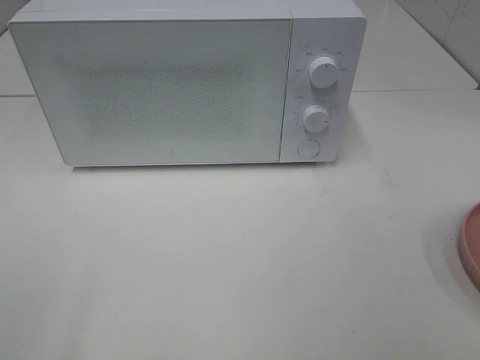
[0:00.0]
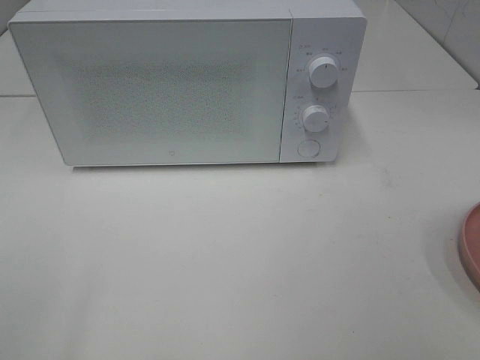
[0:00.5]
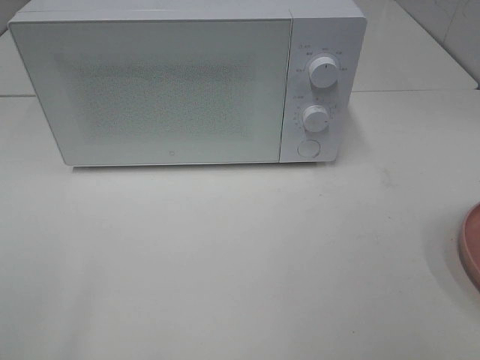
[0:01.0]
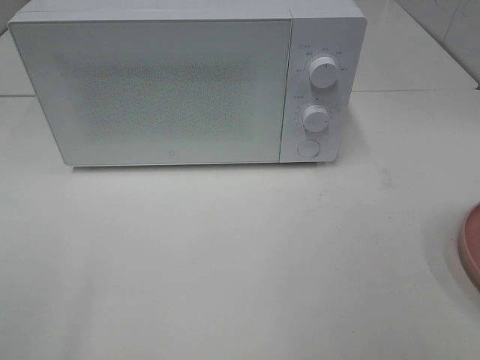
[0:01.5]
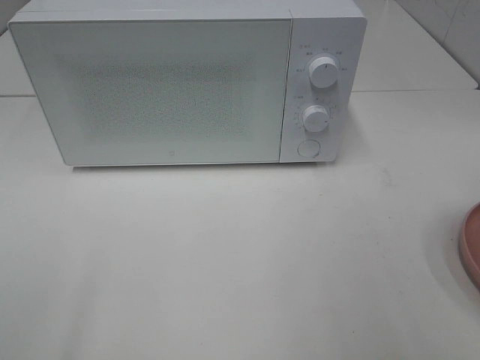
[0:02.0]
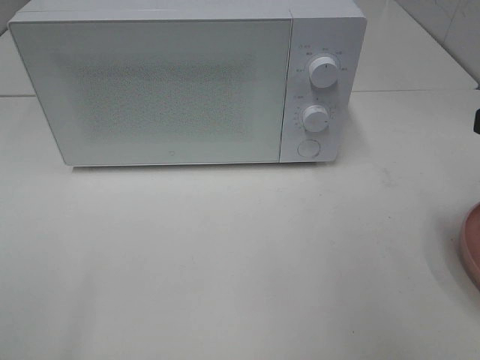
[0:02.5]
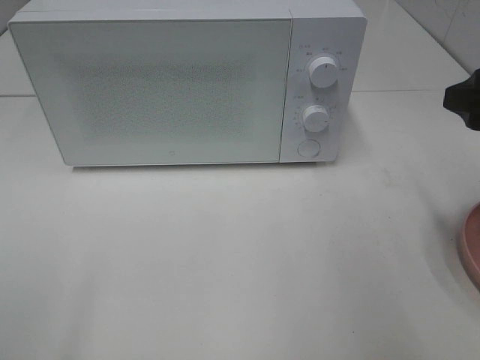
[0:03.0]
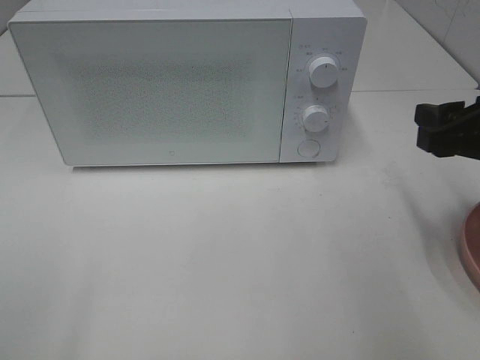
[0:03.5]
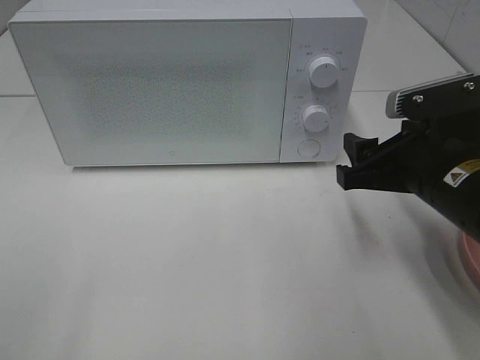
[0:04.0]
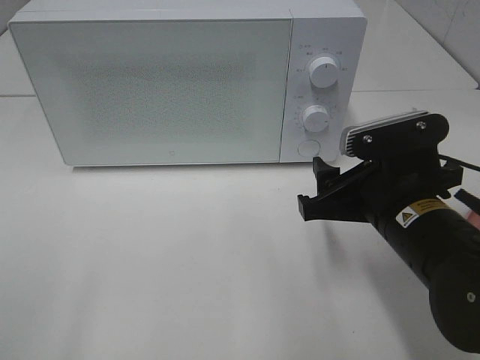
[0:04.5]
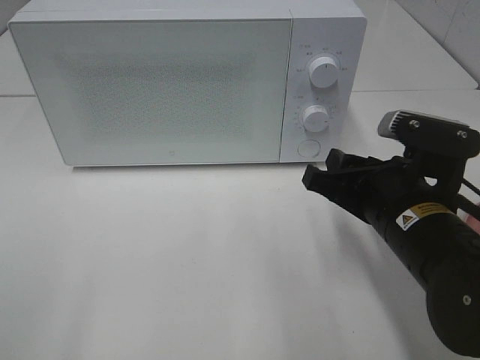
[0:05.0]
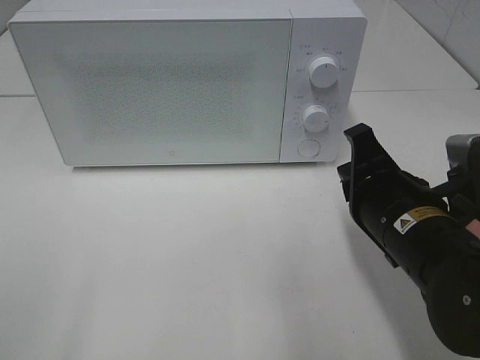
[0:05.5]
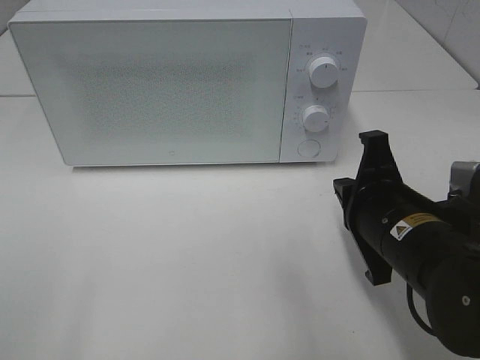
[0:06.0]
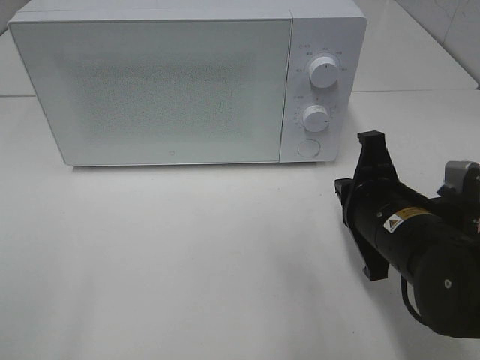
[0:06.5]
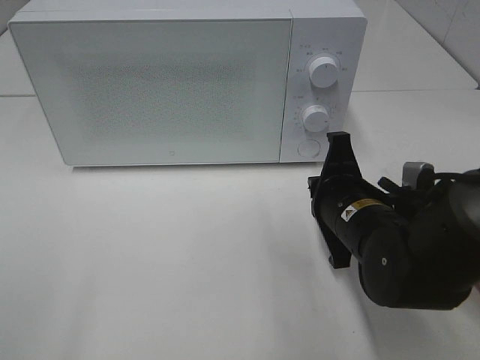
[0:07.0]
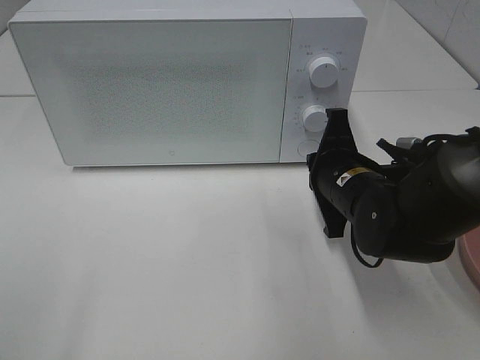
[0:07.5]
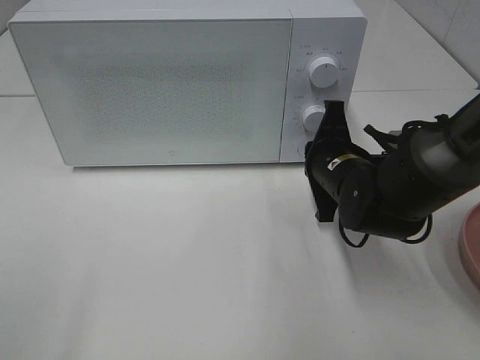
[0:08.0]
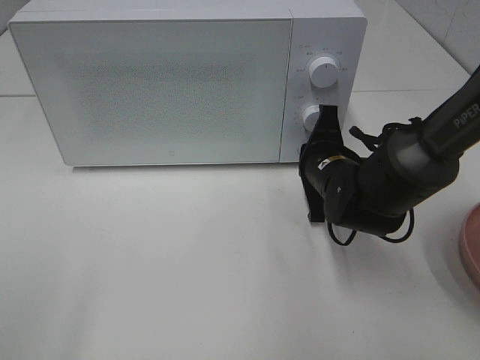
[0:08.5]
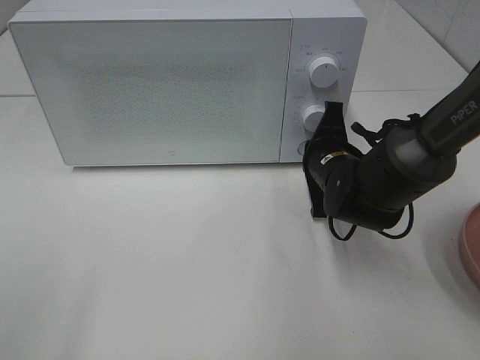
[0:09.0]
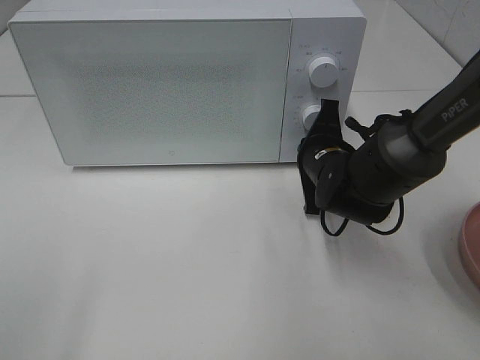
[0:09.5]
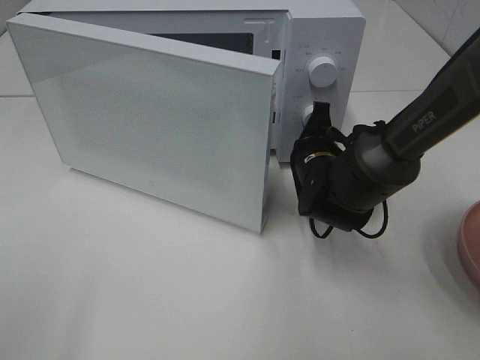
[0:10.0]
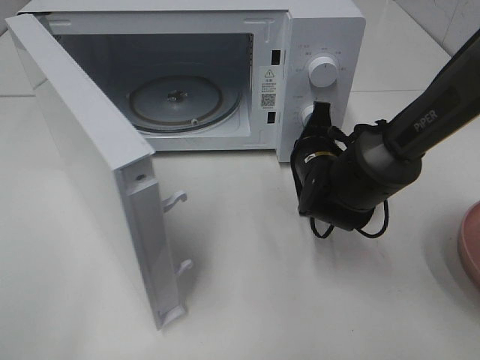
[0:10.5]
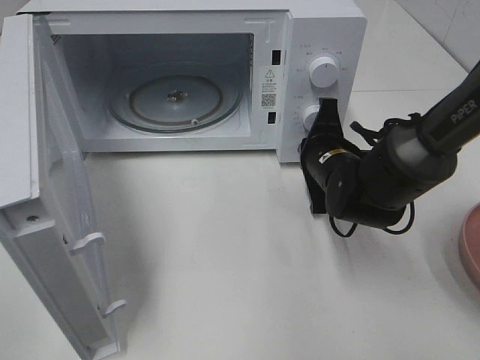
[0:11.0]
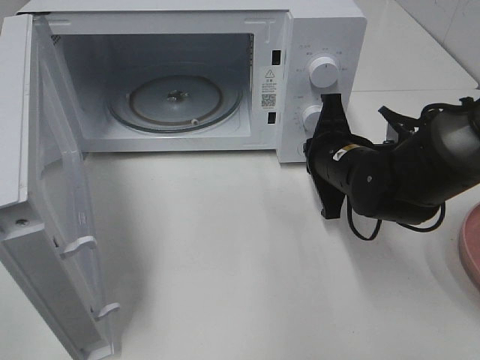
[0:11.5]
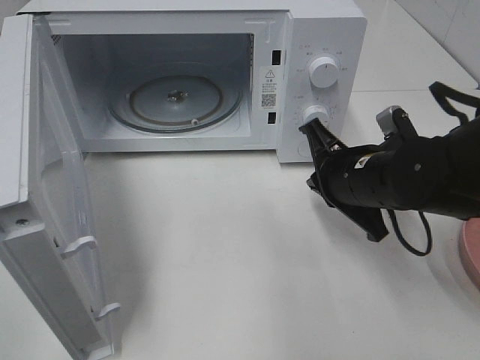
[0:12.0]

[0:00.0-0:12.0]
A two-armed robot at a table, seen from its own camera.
Task of the whole recording: Heat the burger.
Step, 0:00.0 to 0:11.0: Right hand: press the switch.
0:02.0 to 0:04.0: The right gripper goes some 20 cm downward, forward and to the left.
0:04.0 to 0:06.0: The right gripper moves some 5 cm, and closes.
0:06.0 to 0:08.0: The right gripper travels forward by roughly 10 cm.
0:10.0 to 0:12.0: The right gripper travels backward and upward by some 10 cm.

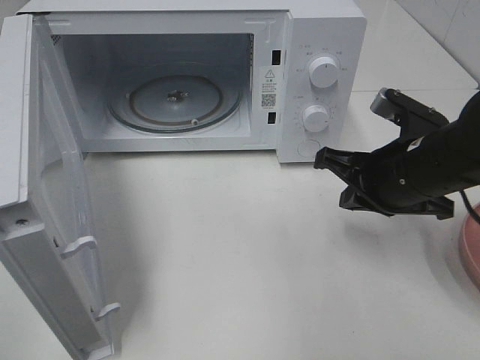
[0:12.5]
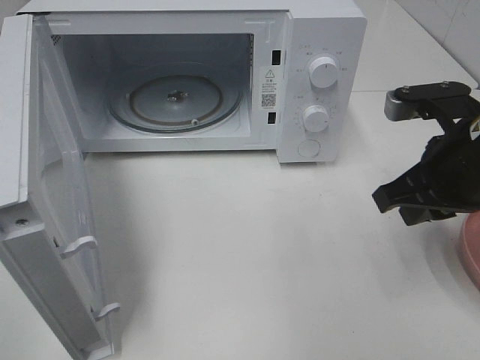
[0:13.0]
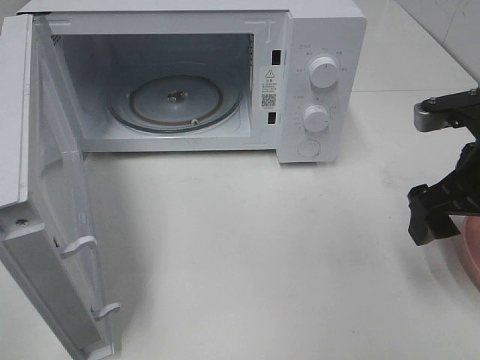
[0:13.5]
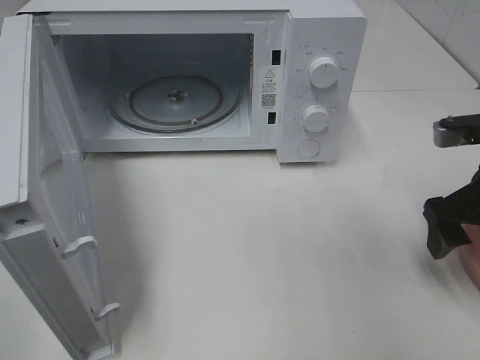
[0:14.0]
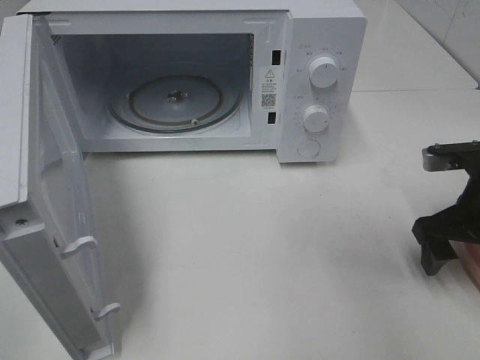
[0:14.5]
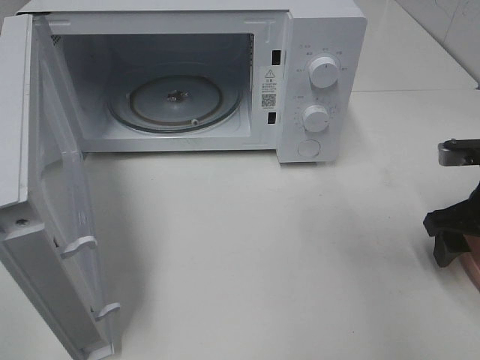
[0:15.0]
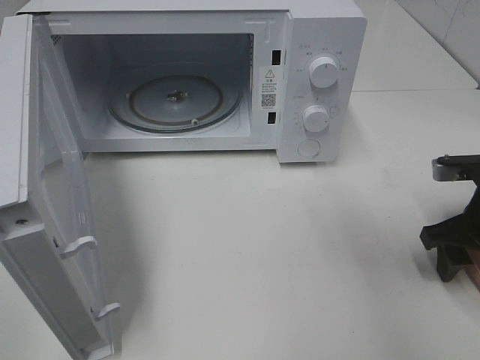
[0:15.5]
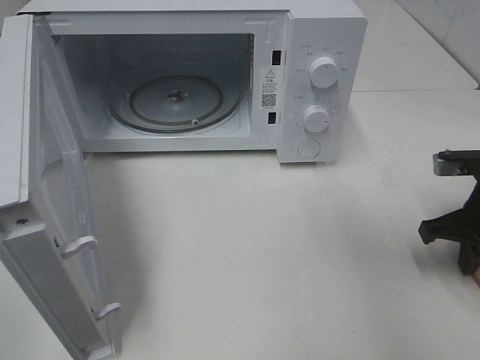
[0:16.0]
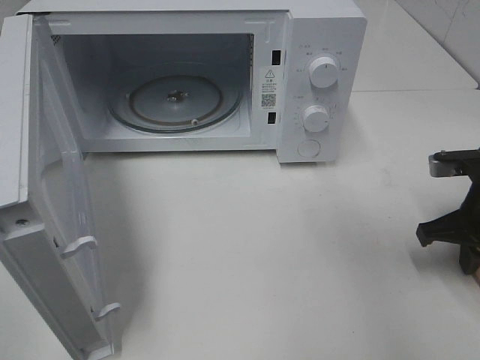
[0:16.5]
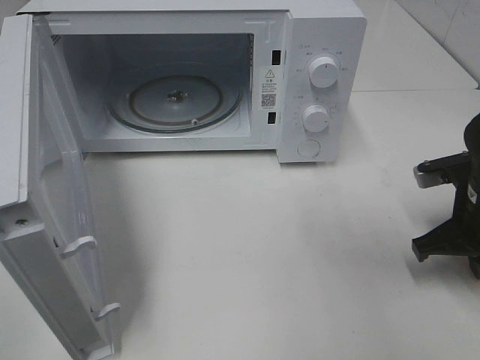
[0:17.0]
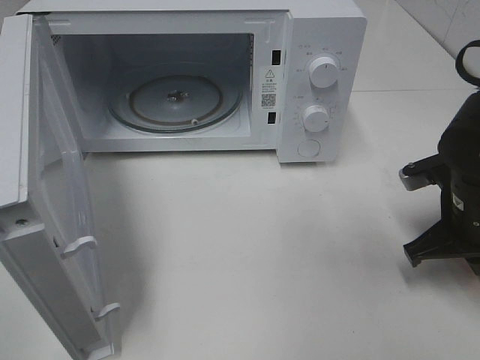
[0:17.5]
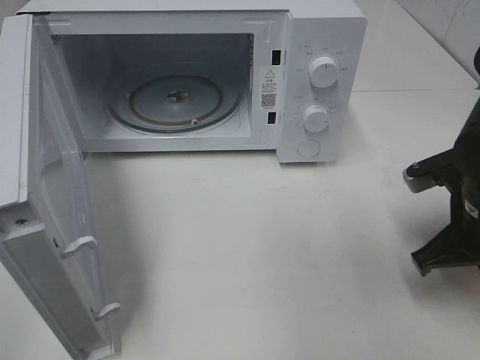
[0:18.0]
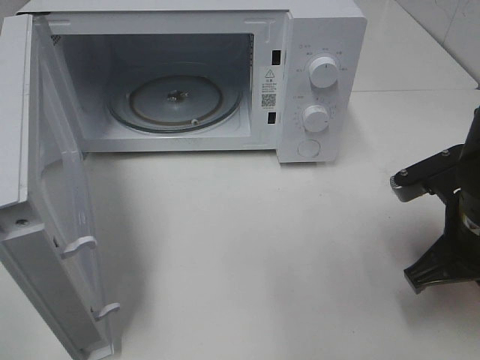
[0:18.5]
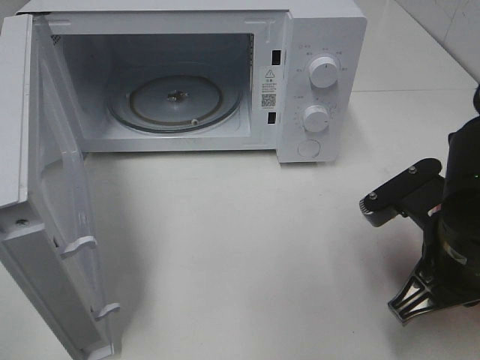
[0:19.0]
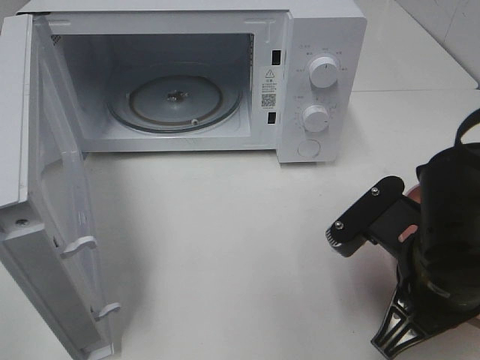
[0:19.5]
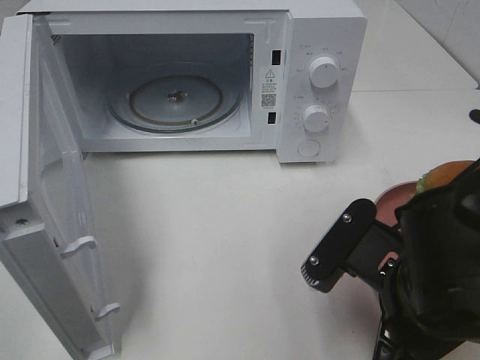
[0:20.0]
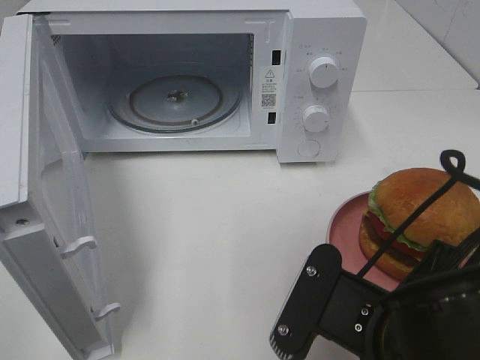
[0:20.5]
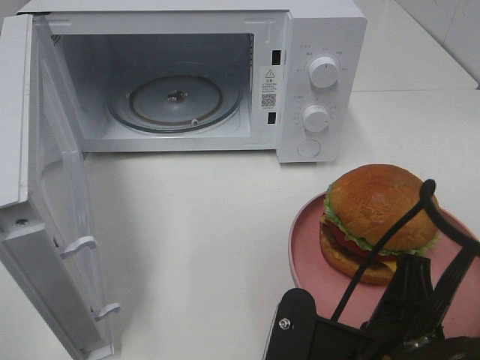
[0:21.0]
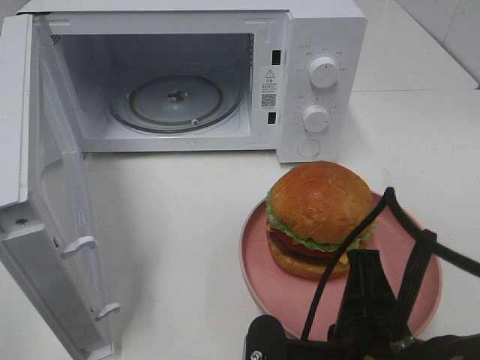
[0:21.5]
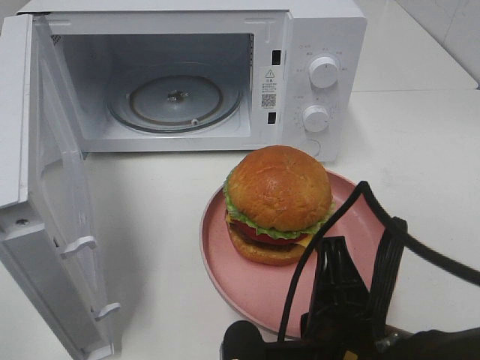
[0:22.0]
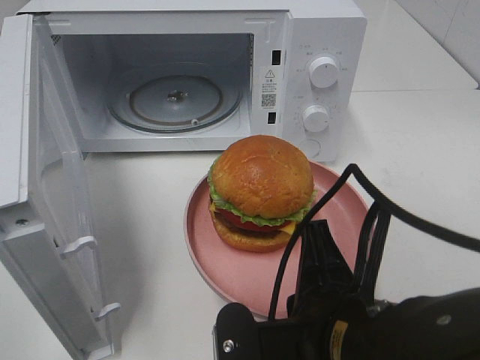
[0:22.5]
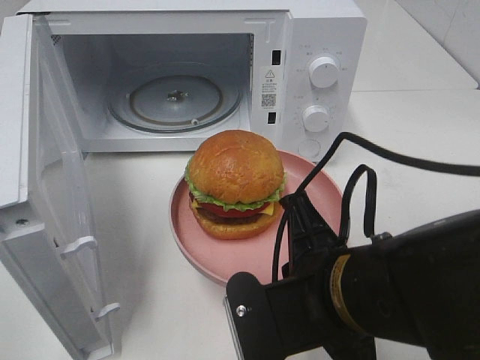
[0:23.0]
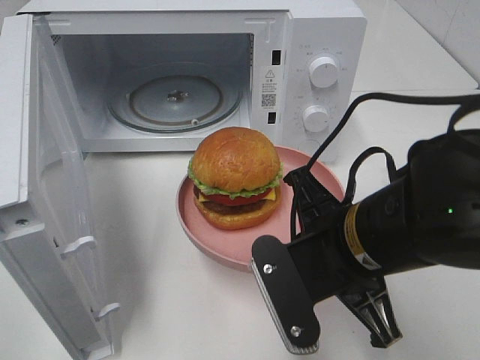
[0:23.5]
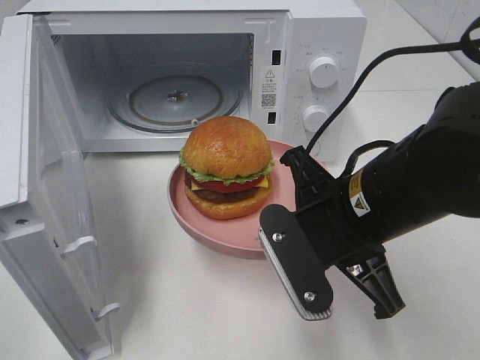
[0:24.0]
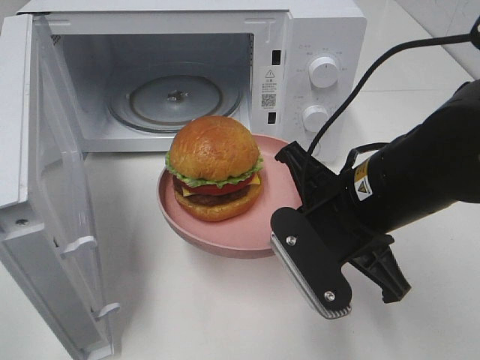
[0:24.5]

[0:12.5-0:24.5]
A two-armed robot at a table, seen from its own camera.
Task of the whole recording: Heat the burger.
Step, 0:12.5 to 0:16.0: Right hand: grab the plate with the hamburger.
0:12.5 to 0:14.5: The right gripper travels to the right by some 10 cm, and opens.
0:14.5 to 0:16.5: The right gripper closes up.
0:16.5 to 0:18.5: The right gripper is displaced to the left and backward by some 10 cm.
0:18.5 to 0:20.5: The right gripper travels backward and to the left by about 15 cm.
0:22.5 to 0:24.5: The right gripper goes about 10 cm forward.

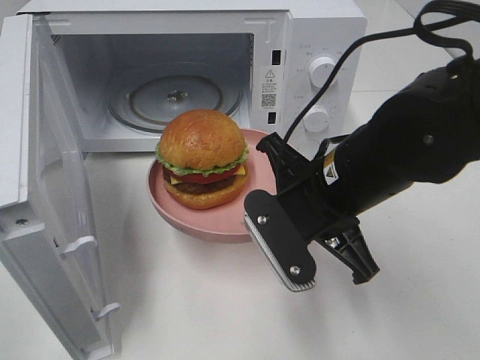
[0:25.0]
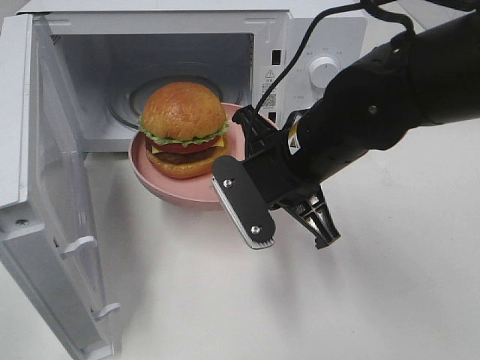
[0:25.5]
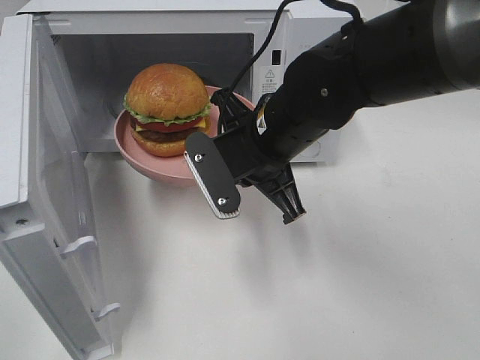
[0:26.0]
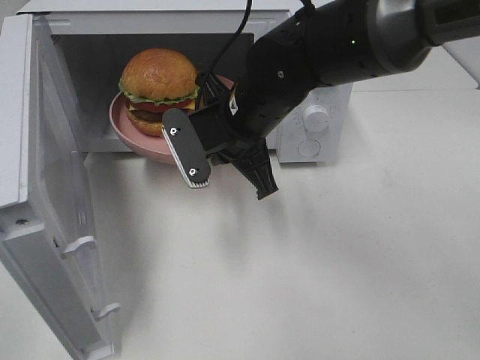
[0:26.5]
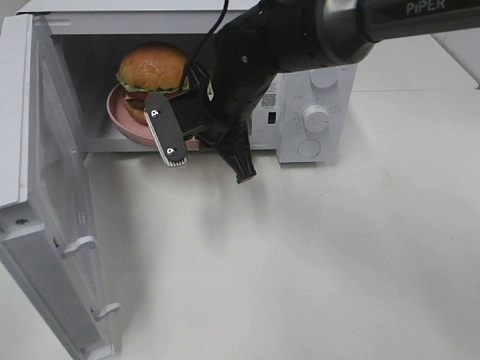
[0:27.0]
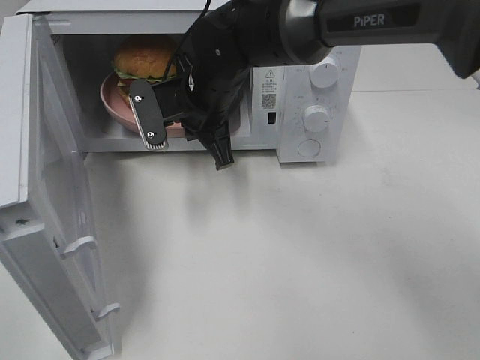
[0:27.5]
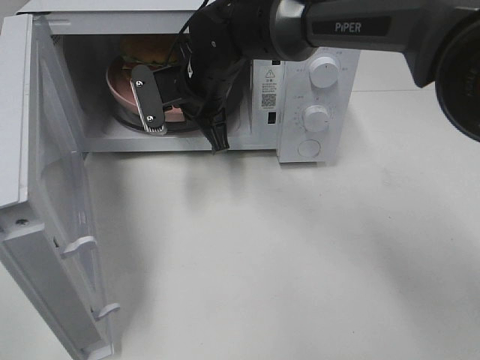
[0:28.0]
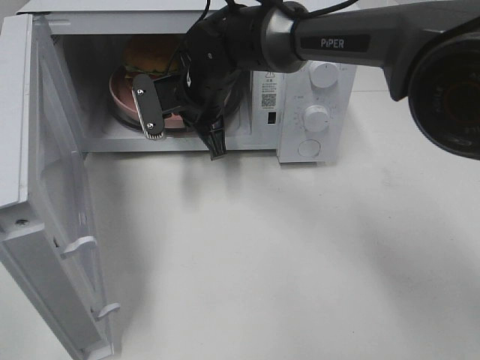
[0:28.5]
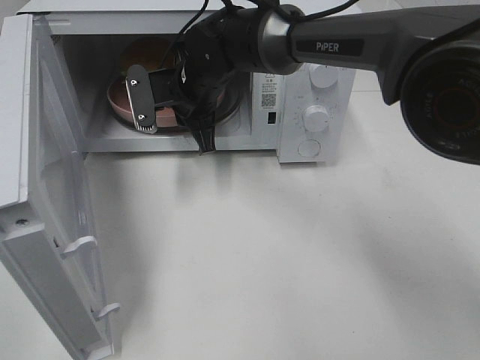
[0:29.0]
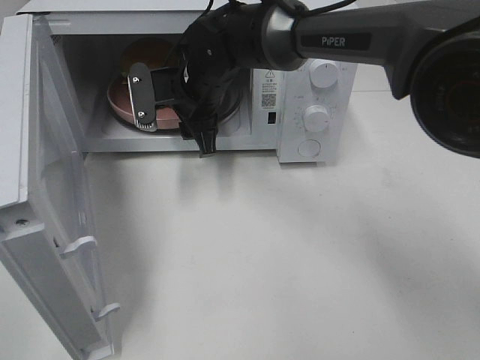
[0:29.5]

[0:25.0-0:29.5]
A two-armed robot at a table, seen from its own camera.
Task of the whole recording: Heat the burger.
Step, 0:25.0 to 0:29.0: Right hand: place the plate in the microwave.
0:25.0 to 0:27.0: The right gripper is displaced forward and to the left by about 15 cm.
0:27.0 to 0:29.5: The right gripper heads forward, covering approximately 5 cm, and opens its fingers.
